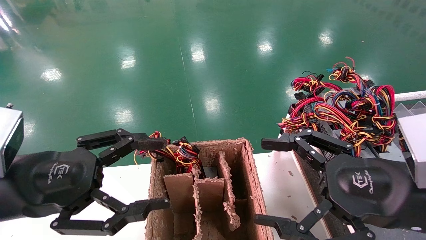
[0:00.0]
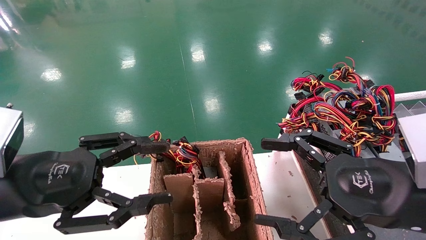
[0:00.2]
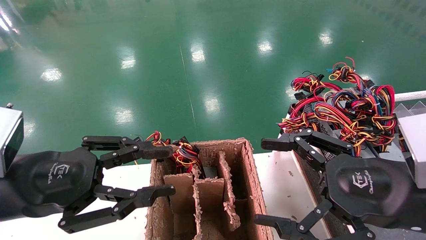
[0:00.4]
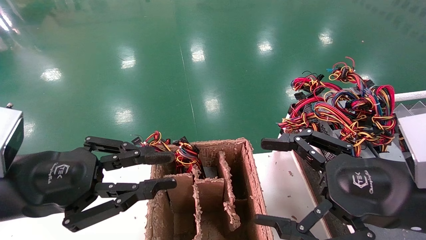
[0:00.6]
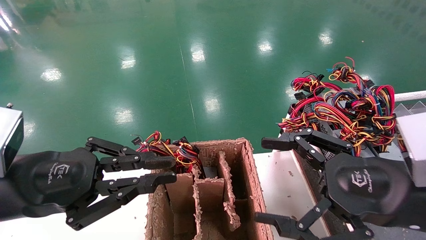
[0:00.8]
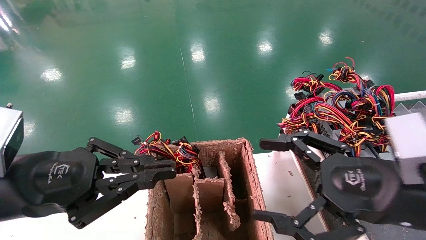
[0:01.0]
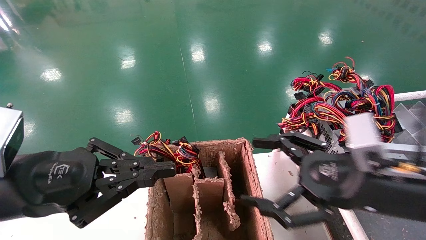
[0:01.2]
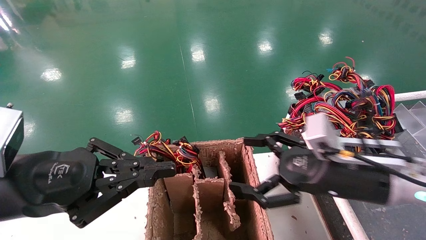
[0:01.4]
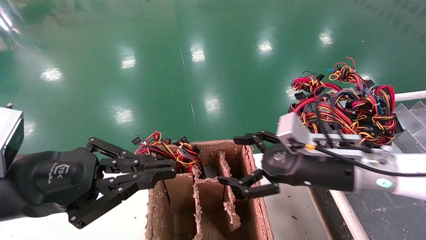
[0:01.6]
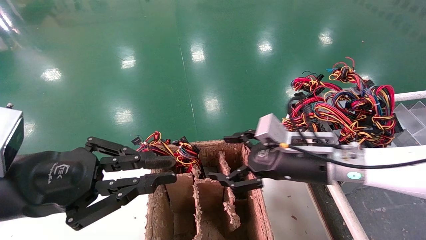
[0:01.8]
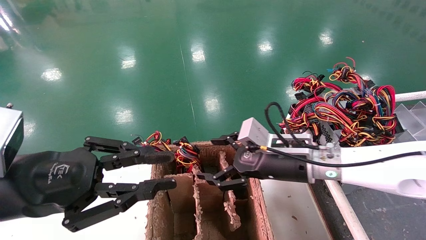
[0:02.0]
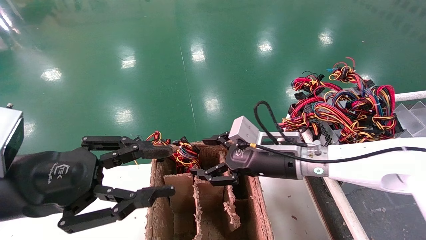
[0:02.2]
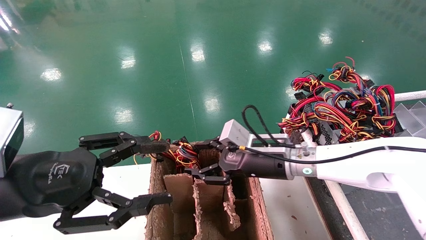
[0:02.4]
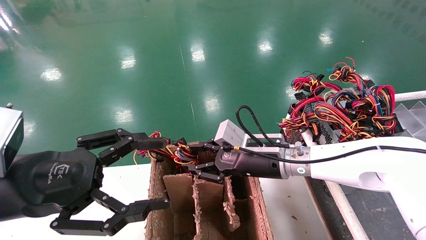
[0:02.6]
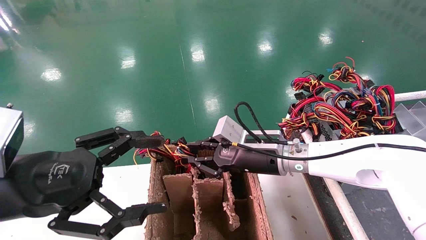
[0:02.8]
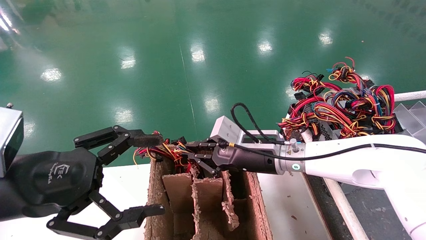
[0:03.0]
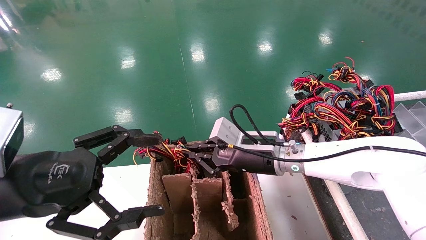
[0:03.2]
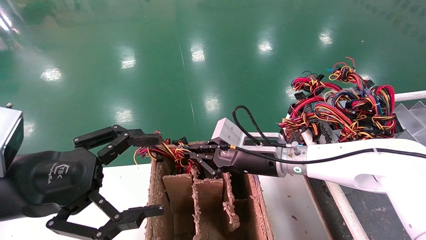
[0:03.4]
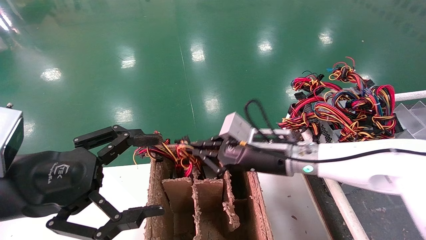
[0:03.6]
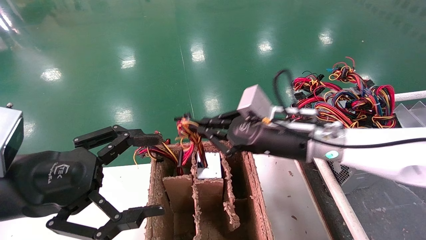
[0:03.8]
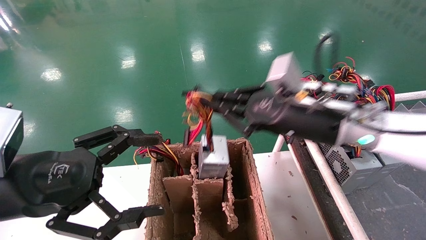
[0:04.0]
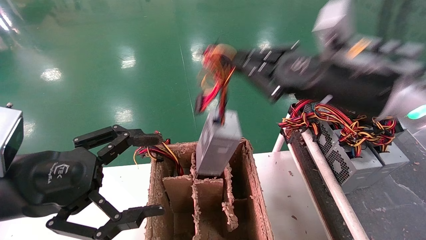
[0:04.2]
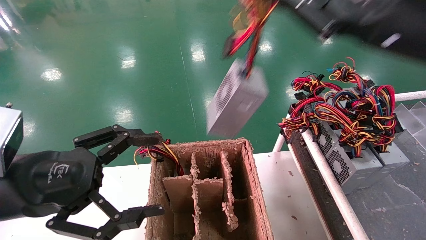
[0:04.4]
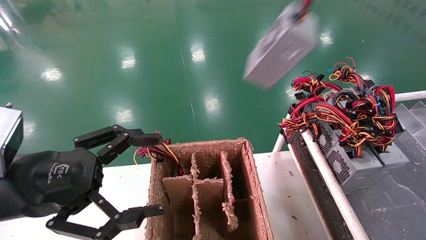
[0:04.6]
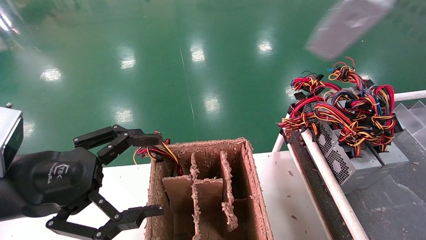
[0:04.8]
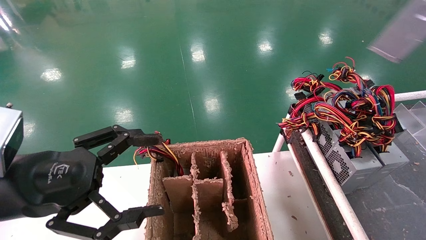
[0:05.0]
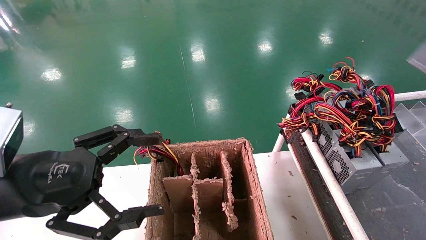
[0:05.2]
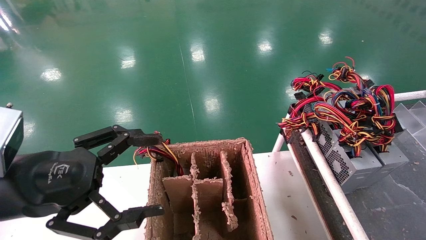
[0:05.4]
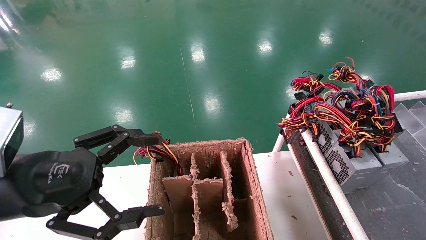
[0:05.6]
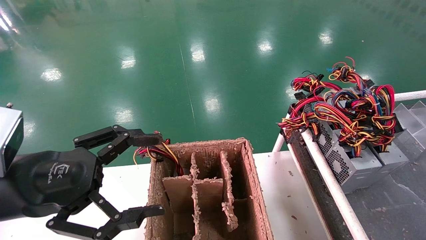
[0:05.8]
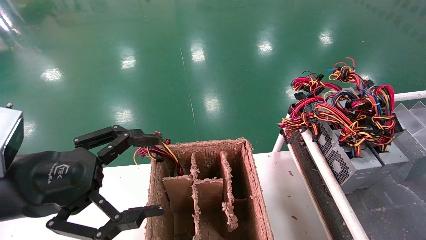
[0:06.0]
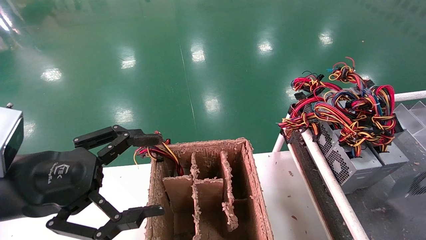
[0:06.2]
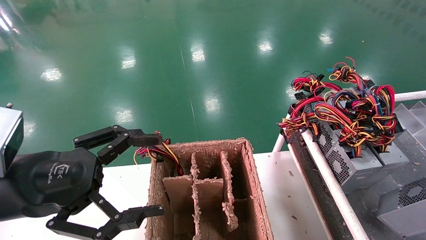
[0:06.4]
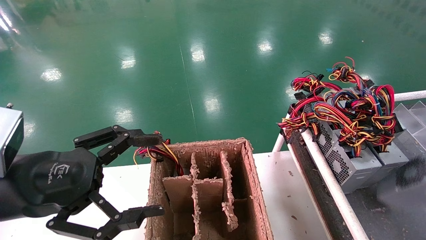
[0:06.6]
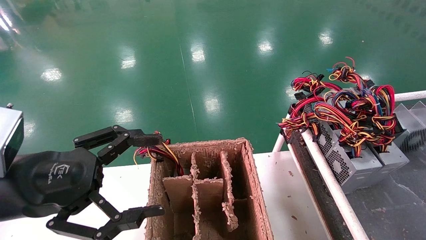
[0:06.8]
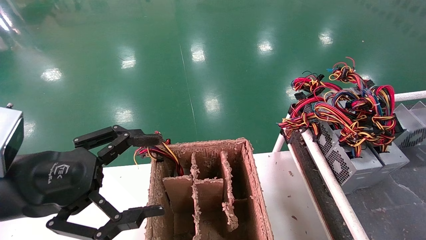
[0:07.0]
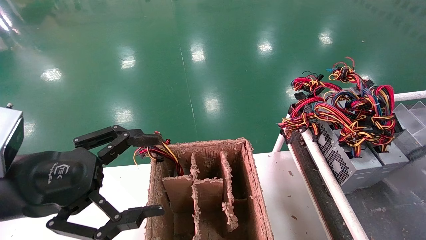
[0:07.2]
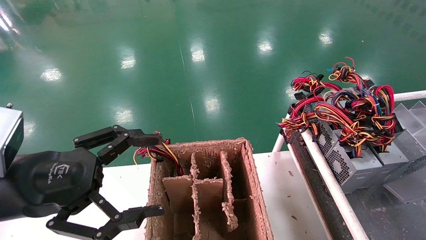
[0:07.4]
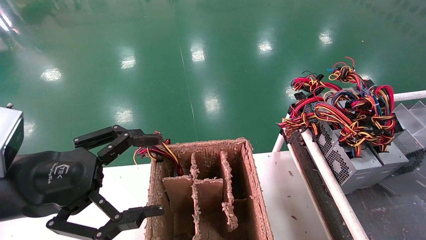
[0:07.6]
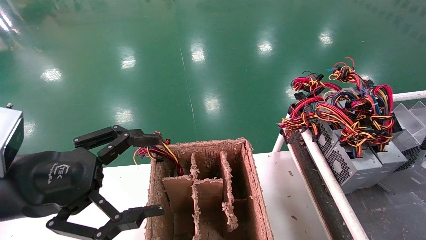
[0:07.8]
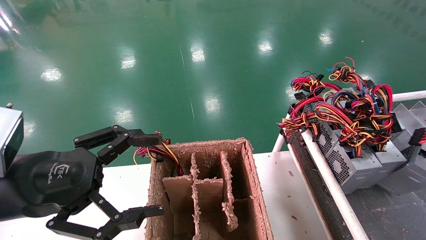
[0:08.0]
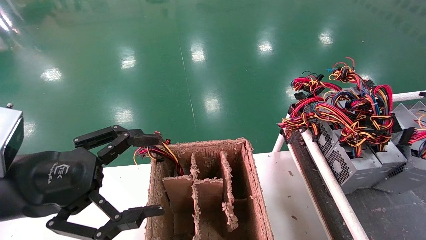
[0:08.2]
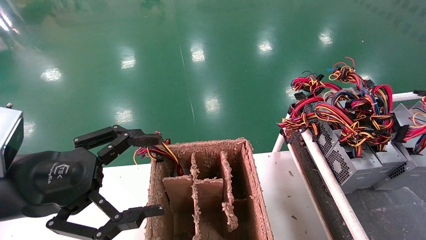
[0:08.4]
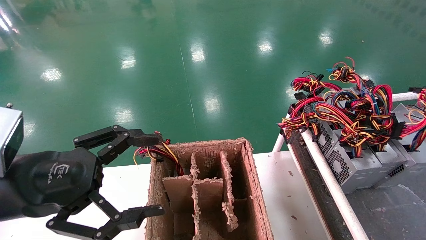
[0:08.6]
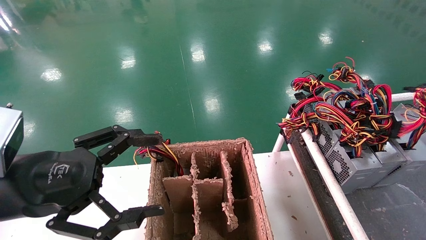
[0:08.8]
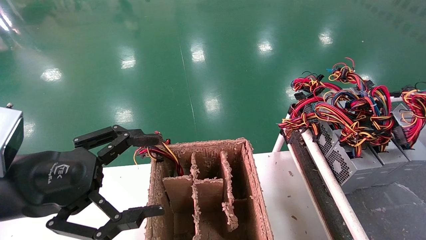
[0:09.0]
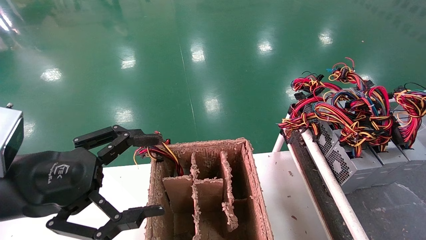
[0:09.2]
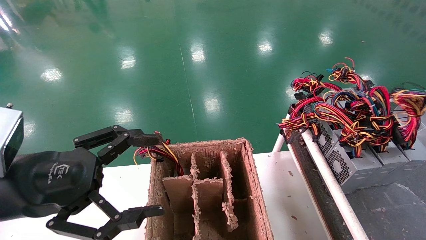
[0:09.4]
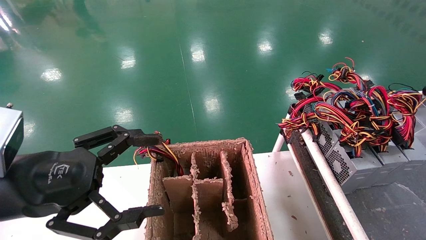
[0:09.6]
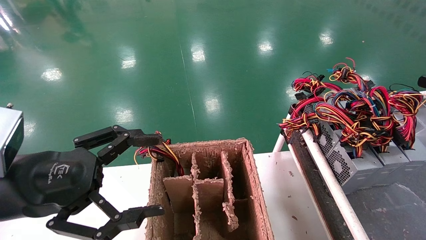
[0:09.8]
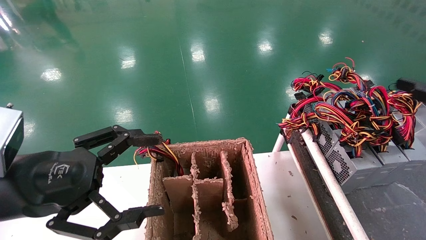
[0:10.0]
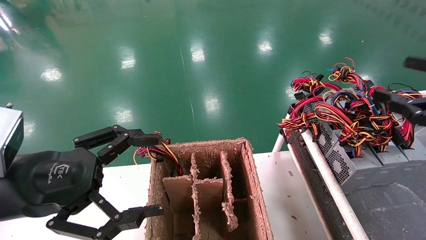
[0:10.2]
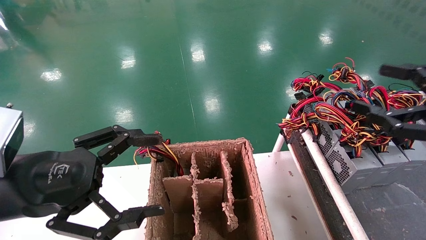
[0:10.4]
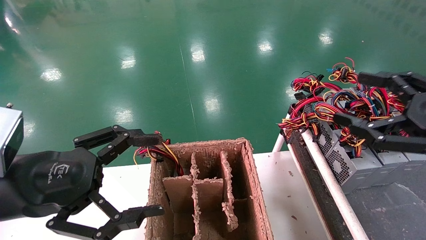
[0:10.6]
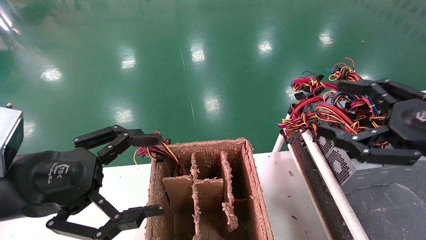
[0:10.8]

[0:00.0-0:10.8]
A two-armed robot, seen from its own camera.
Step, 0:01.2 to 0:03.2: Grab and lift the power supply from the large box.
Step, 0:03.4 to 0:09.0: Place the power supply on the operating table.
0:00.0 to 0:01.6: The left gripper closes its fingers. The right gripper moves forward and to the left, some 15 cm.
0:01.6 to 0:03.0: The right gripper travels to the left and forward by about 10 cm, and closes up; the left gripper opens.
0:03.0 to 0:04.6: The right gripper moves upward, to the right and backward, about 40 cm.
0:04.6 to 0:06.2: The right gripper moves to the right, downward and backward, about 30 cm.
0:06.2 to 0:07.8: The right gripper moves roughly 5 cm.
0:07.8 to 0:09.2: The right gripper shifts by approximately 5 cm.
0:09.2 to 0:10.8: The right gripper heads to the left, covering roughly 15 cm, and opens.

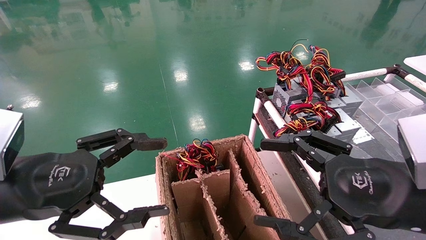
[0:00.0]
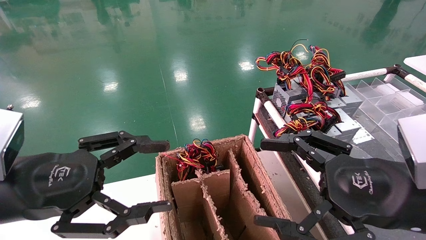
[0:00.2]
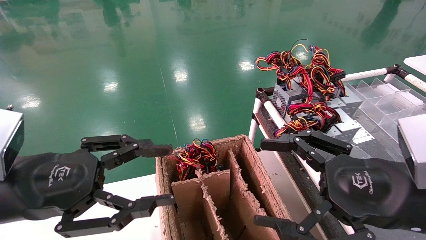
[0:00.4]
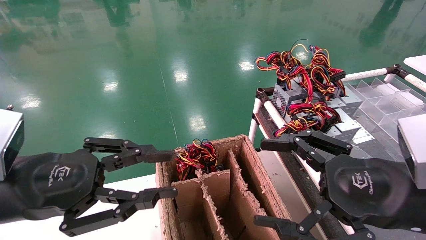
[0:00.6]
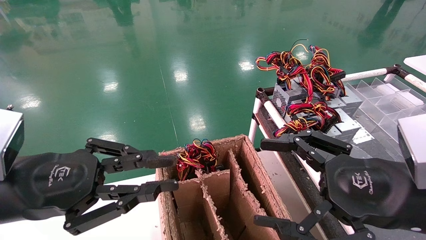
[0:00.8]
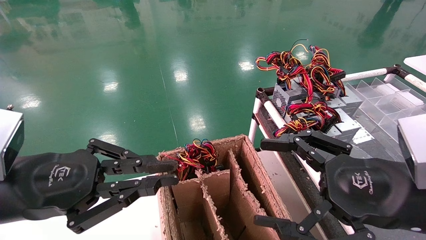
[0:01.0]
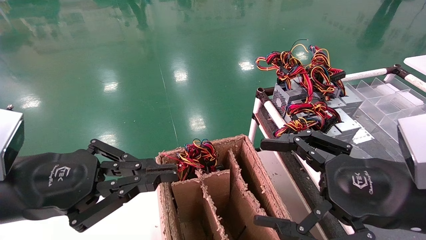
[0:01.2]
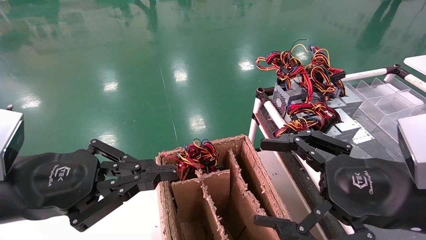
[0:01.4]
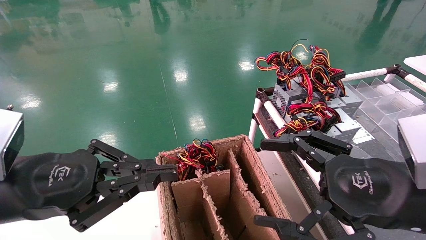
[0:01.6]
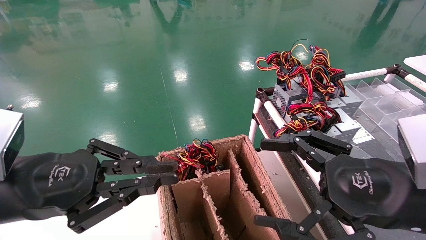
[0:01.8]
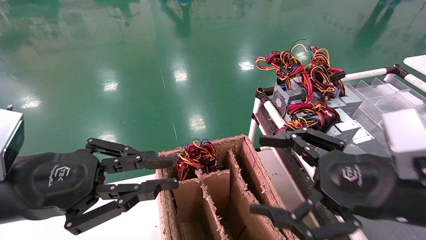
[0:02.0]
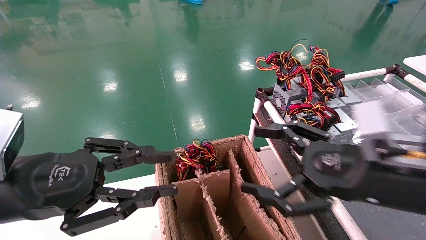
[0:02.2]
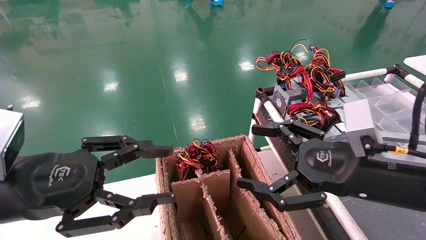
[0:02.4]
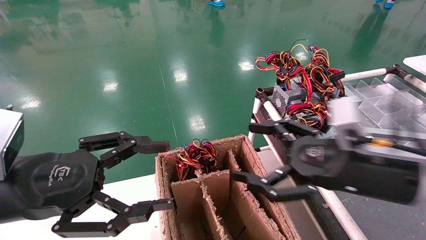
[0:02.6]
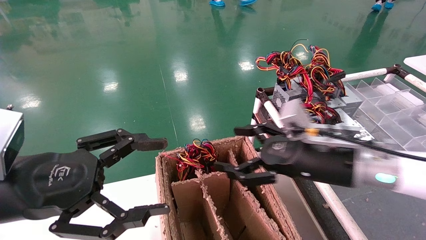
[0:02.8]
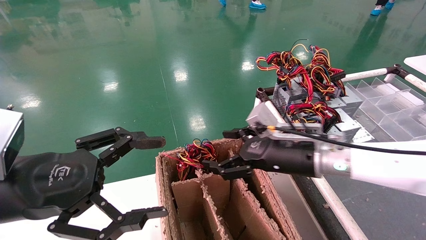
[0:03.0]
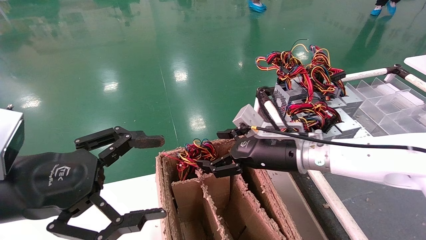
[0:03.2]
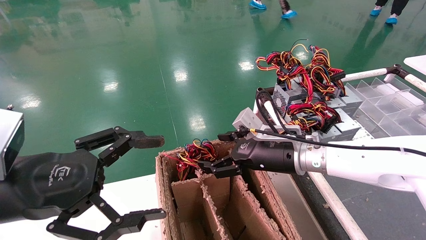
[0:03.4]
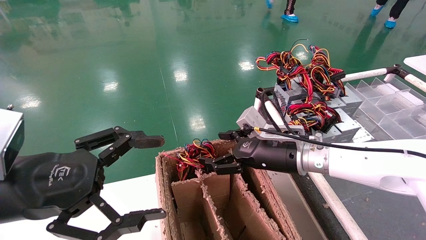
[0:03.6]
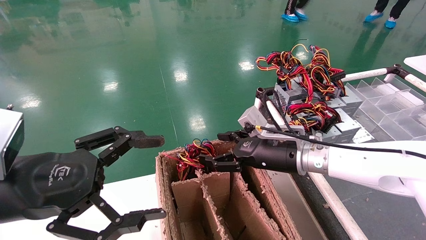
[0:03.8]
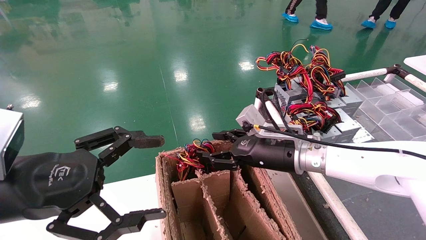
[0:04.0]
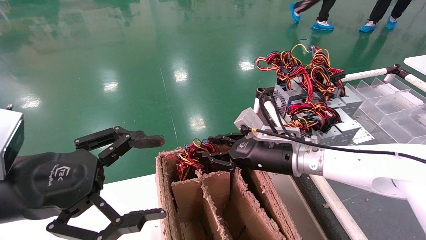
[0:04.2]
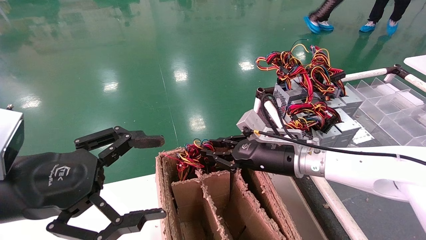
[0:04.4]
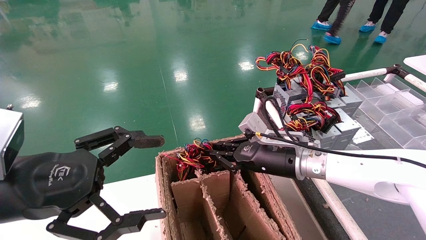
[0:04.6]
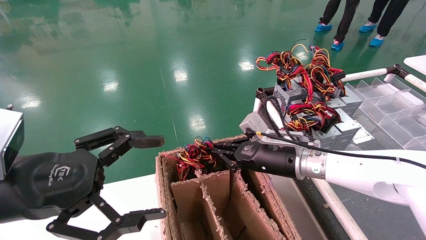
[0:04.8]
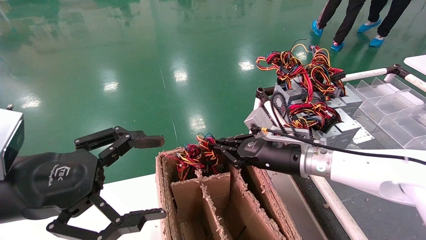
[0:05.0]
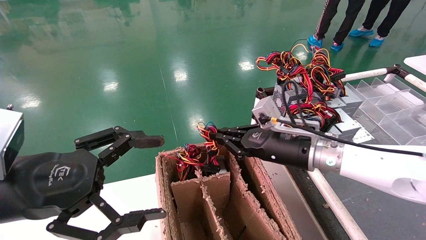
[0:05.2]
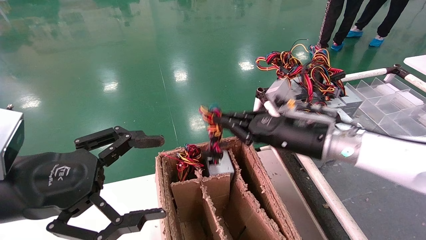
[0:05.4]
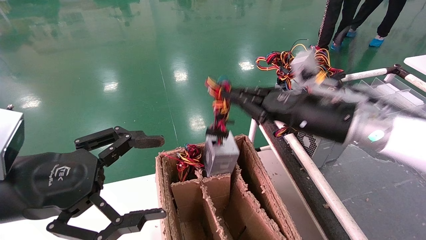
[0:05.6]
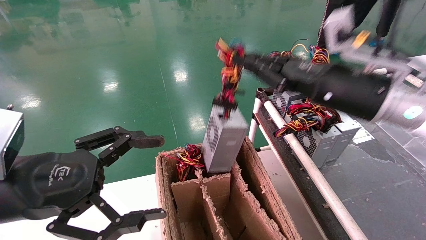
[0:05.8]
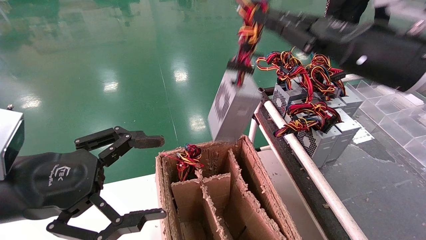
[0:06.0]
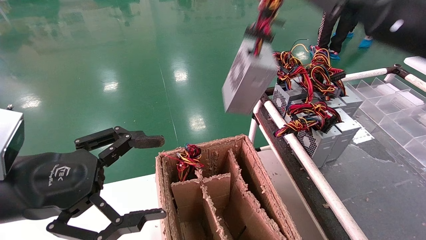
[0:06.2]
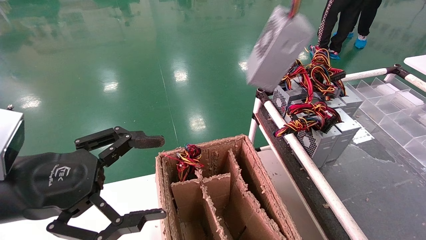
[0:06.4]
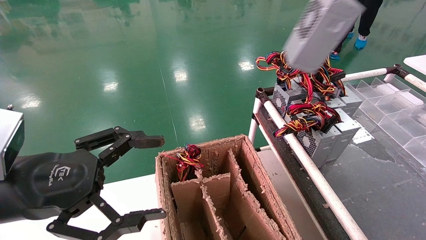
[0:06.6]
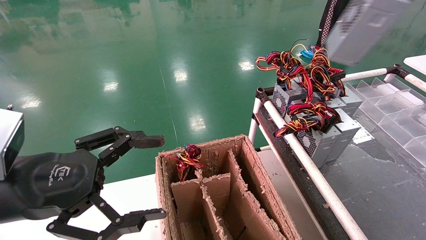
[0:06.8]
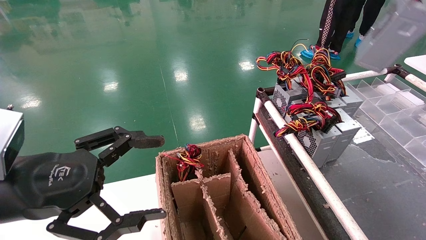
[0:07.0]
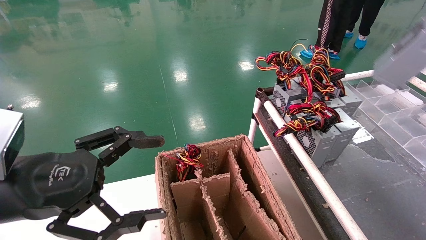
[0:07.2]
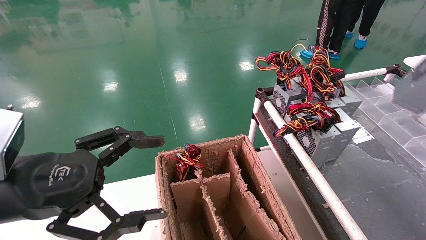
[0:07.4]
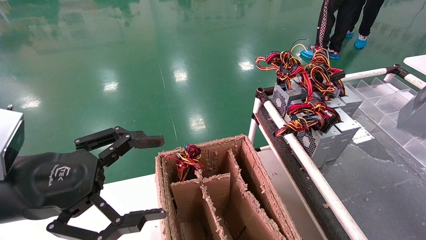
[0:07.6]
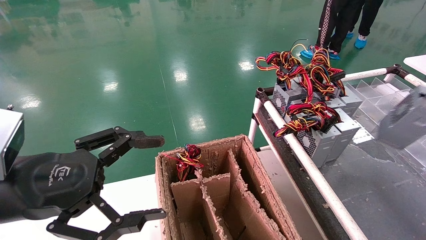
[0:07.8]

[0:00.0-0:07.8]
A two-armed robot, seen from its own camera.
Step, 0:01.4 to 0:04.8: Grab and lift the power supply from the large box.
0:00.0 to 0:01.6: The left gripper closes up.
0:01.6 to 0:03.2: The right gripper moves forward and to the left, roughly 20 cm. The left gripper opens up.
0:03.2 to 0:04.6: The right gripper closes up.
0:04.6 to 0:06.2: The right gripper moves upward, to the right and backward, roughly 30 cm.
0:06.2 to 0:07.8: The right gripper is displaced to the right by about 25 cm.
